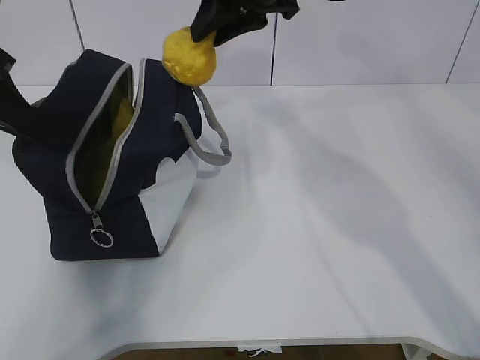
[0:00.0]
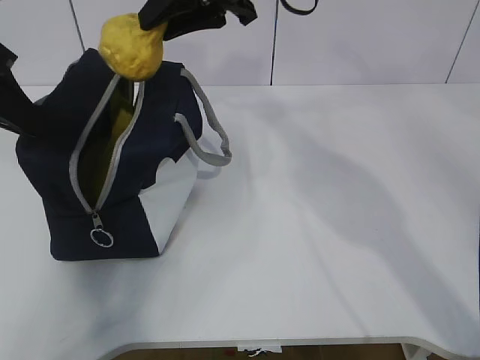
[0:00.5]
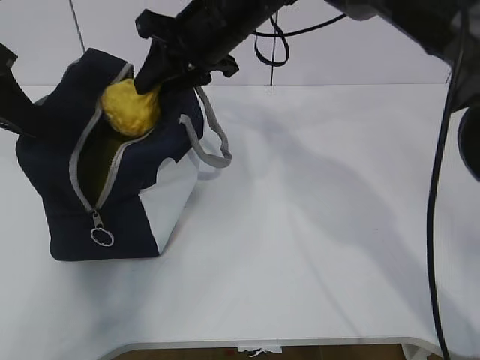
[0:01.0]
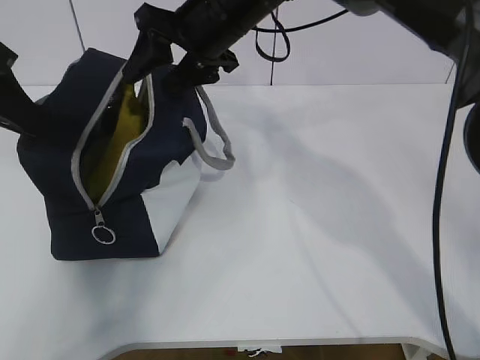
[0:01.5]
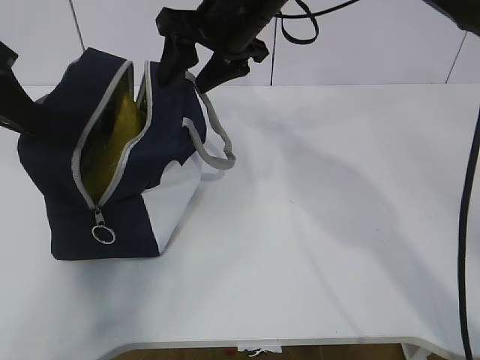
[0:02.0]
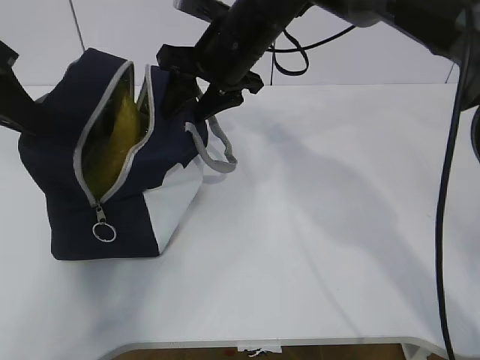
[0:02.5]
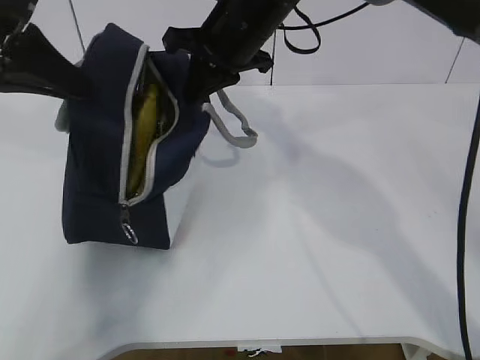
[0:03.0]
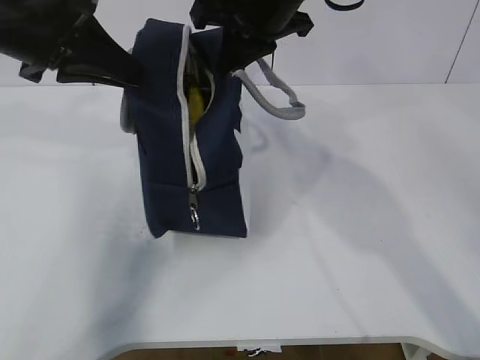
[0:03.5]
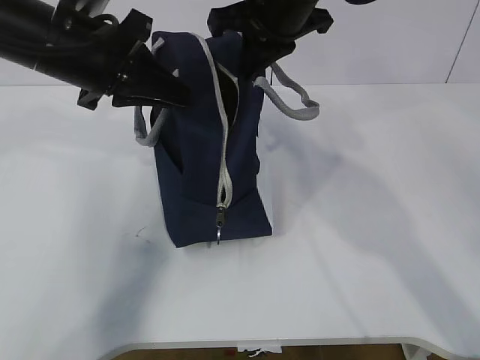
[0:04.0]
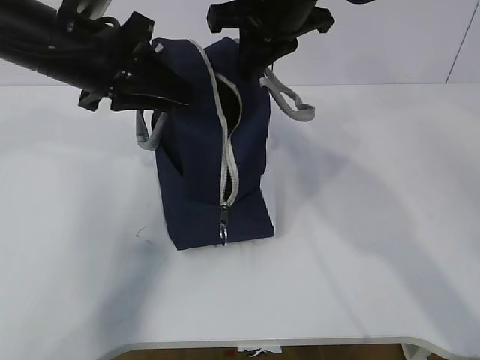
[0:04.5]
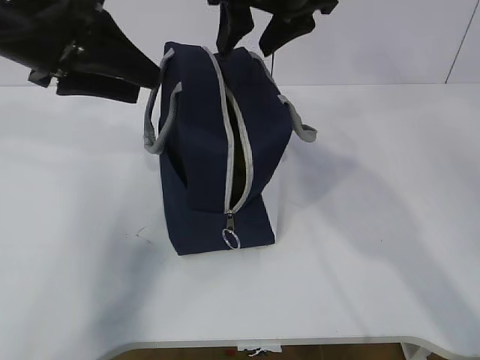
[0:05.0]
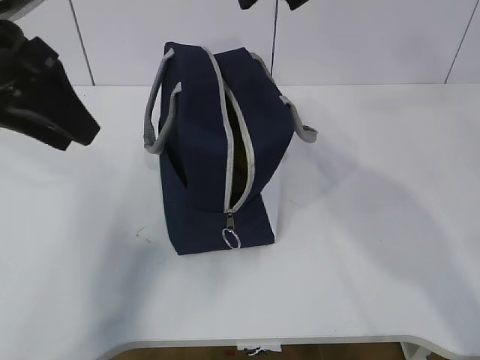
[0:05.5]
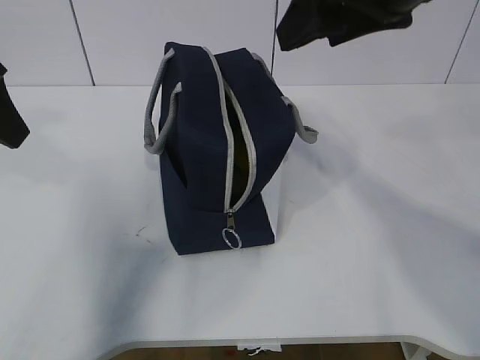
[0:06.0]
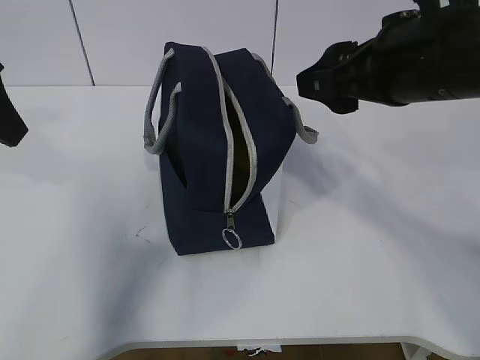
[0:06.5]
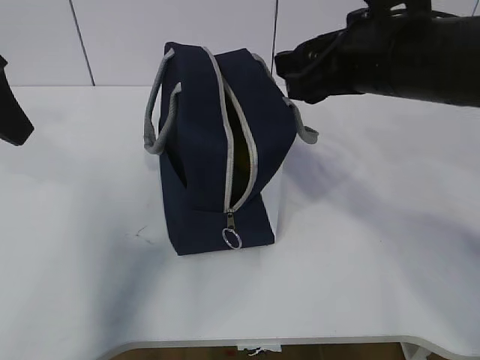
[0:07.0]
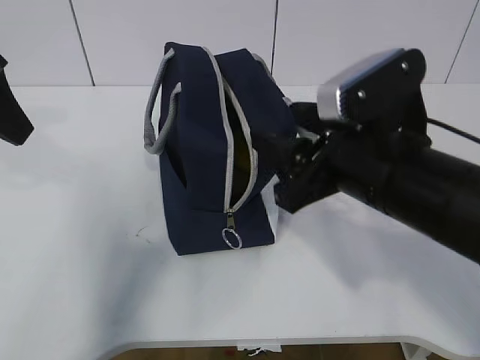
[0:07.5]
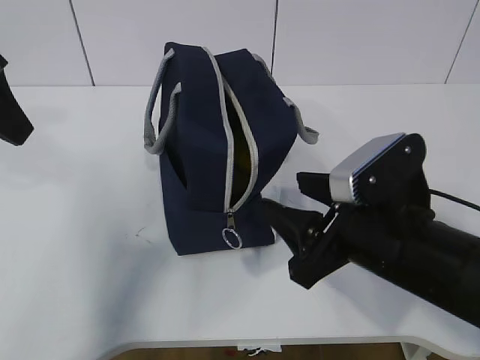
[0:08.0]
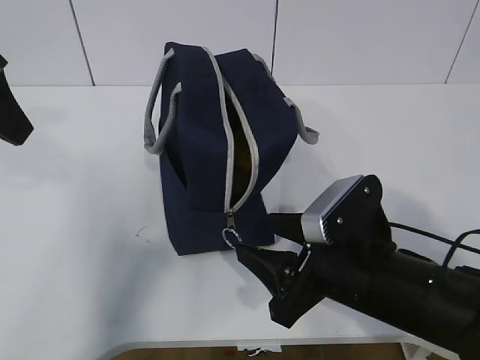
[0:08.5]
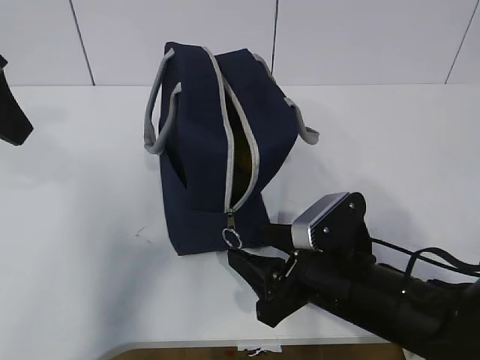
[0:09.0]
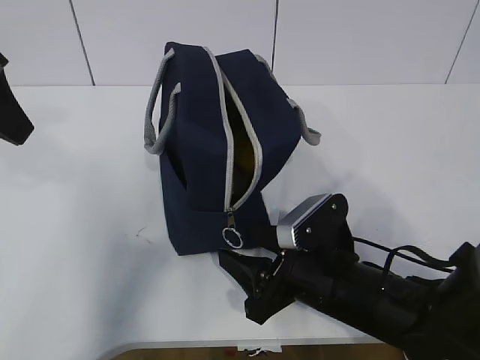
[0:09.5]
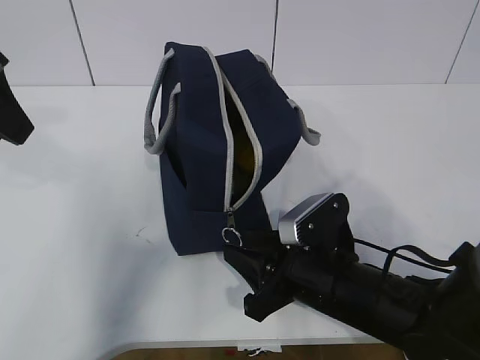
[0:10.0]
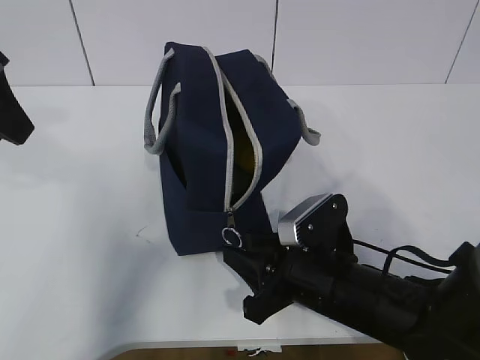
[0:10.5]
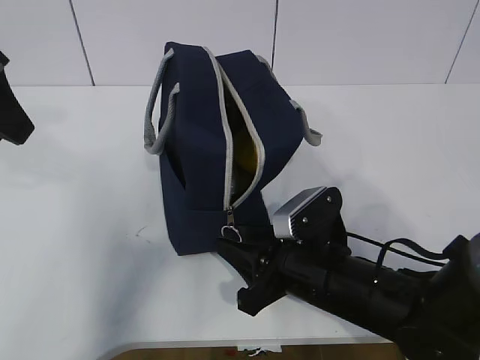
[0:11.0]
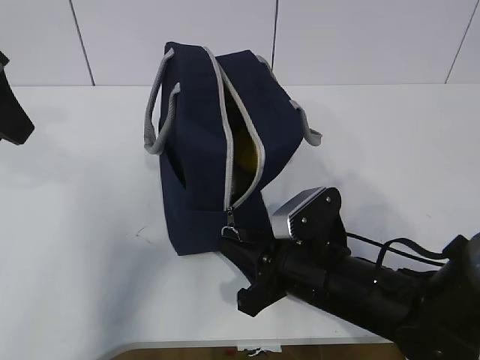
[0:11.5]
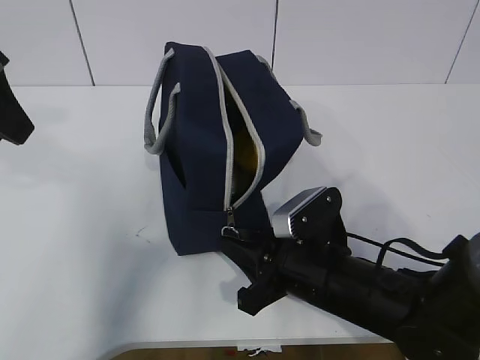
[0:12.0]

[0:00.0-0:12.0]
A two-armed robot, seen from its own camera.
Step, 0:00.0 to 0:11.5: Grab the lunch bag with your left hand.
0:00.0 to 0:02.0: The right gripper changes place by approximately 5 cm, and opens its fingers.
0:02.0 to 0:04.0: The left gripper travels to the right by approximately 10 cm, while the right gripper moves about 5 cm, and closes up.
0:04.0 to 0:06.0: The left gripper travels to the left, backward and upward by roughly 10 cm, and opens its fingers. The right gripper travels backward, to the right and upward by roughly 15 cm, and opens up.
0:06.0 to 0:08.0: The right gripper moves downward, approximately 20 cm.
0:08.0 to 0:10.0: The right gripper goes about 10 cm downward.
0:10.0 to 0:12.0: Neither gripper changes place.

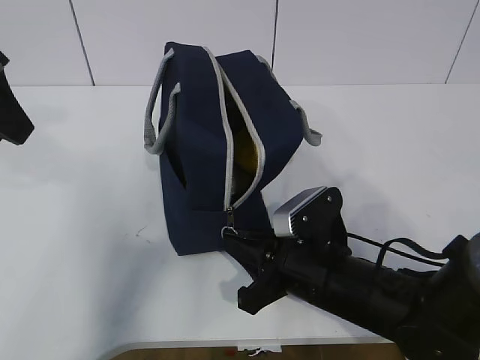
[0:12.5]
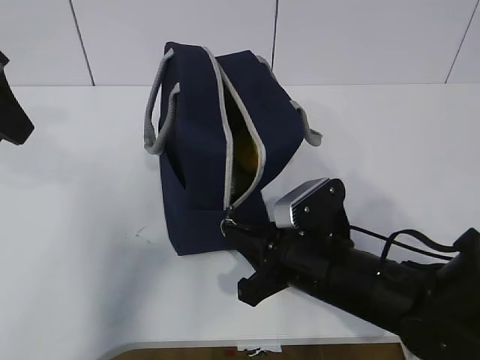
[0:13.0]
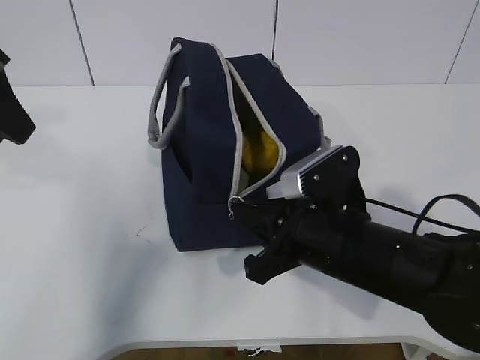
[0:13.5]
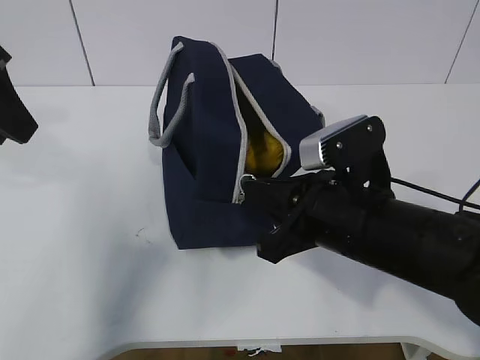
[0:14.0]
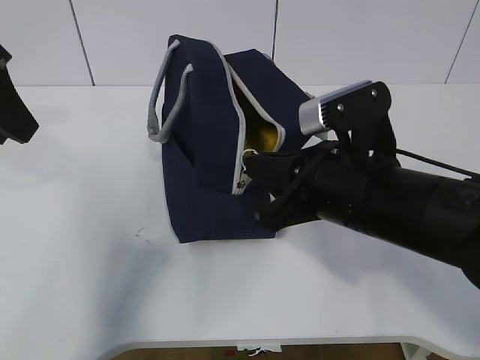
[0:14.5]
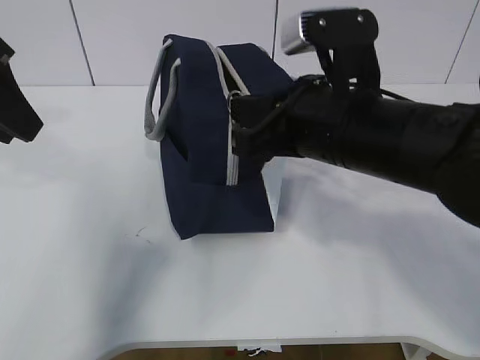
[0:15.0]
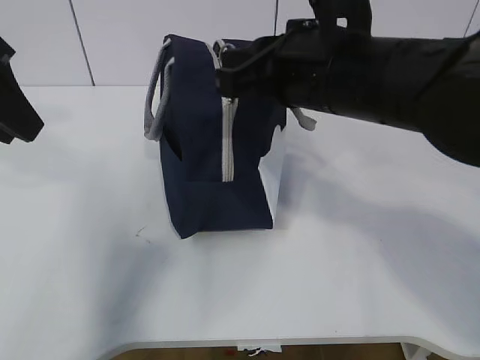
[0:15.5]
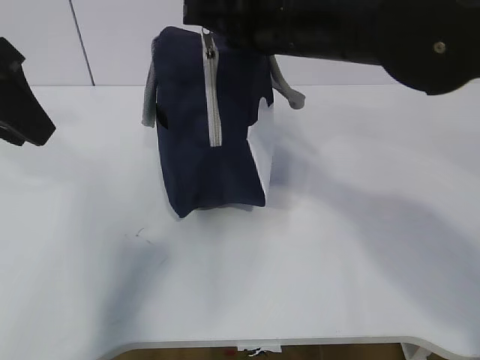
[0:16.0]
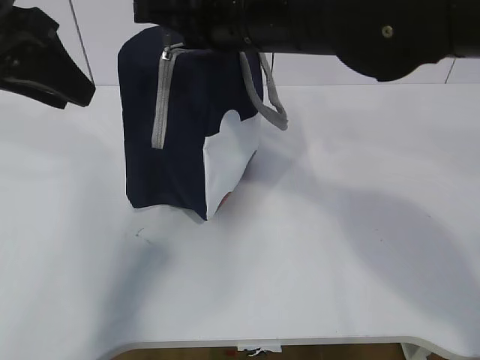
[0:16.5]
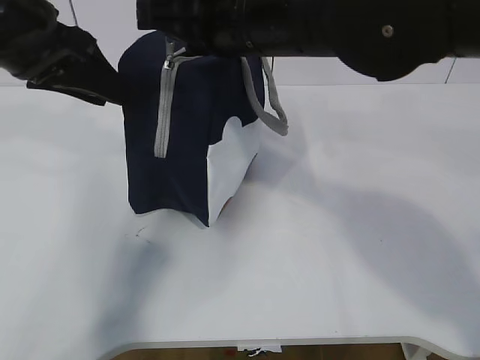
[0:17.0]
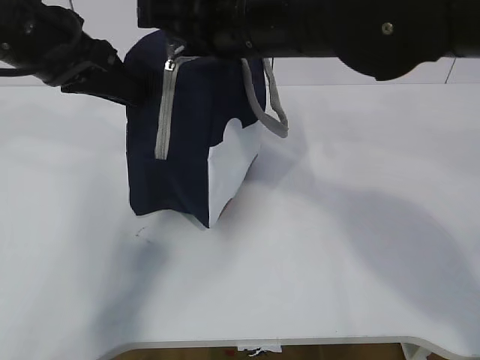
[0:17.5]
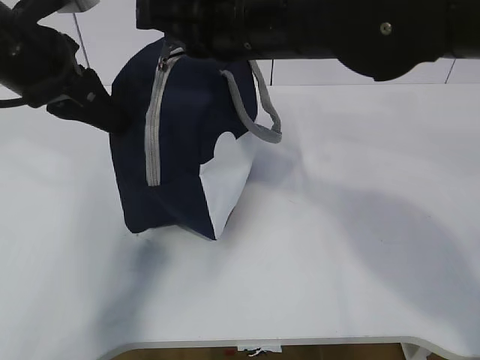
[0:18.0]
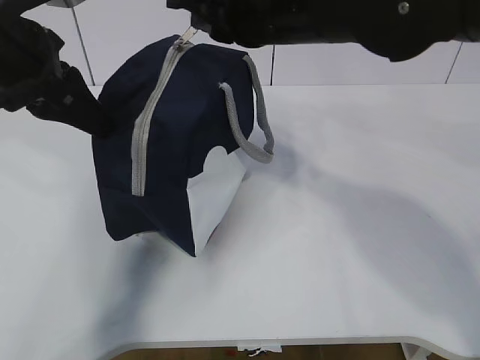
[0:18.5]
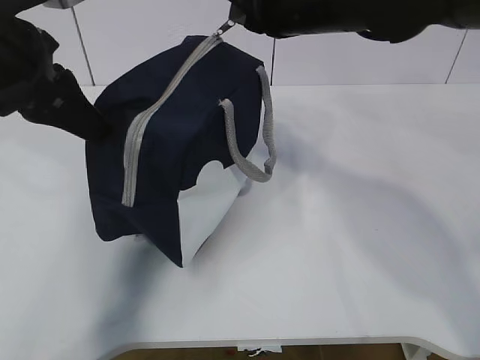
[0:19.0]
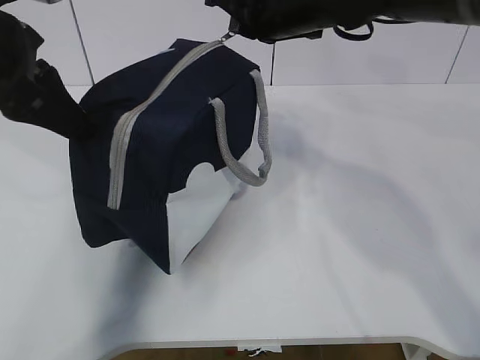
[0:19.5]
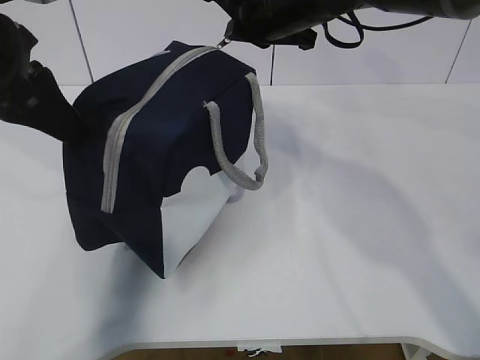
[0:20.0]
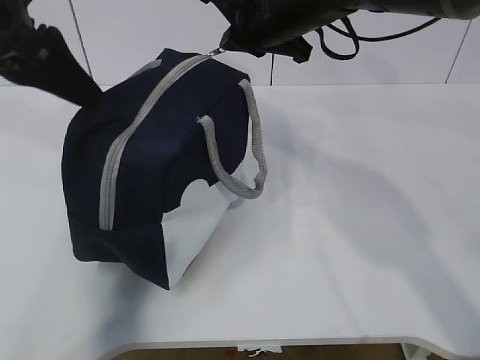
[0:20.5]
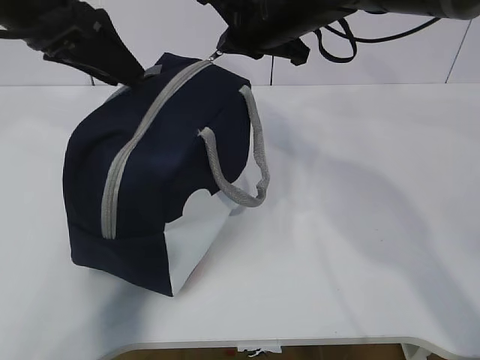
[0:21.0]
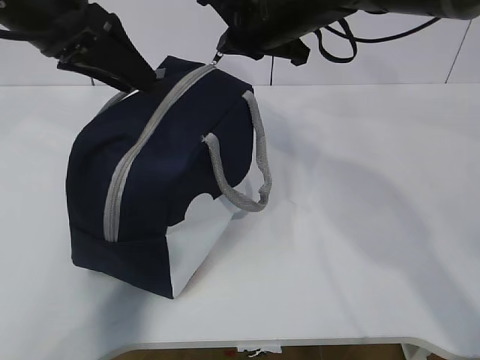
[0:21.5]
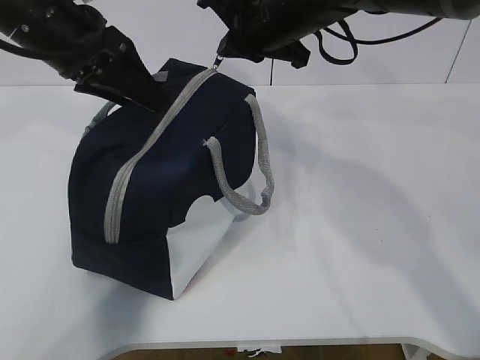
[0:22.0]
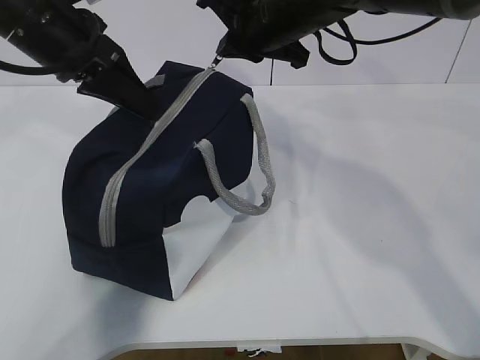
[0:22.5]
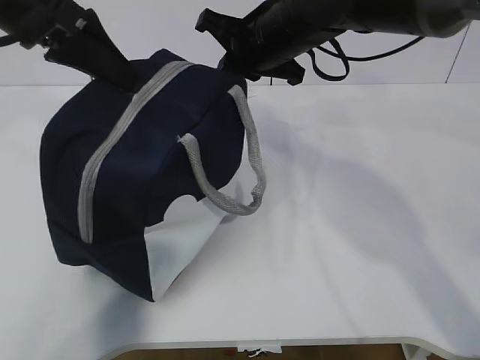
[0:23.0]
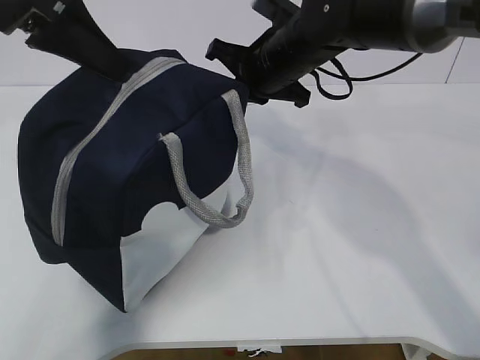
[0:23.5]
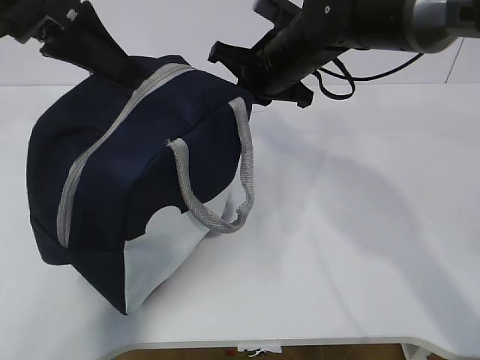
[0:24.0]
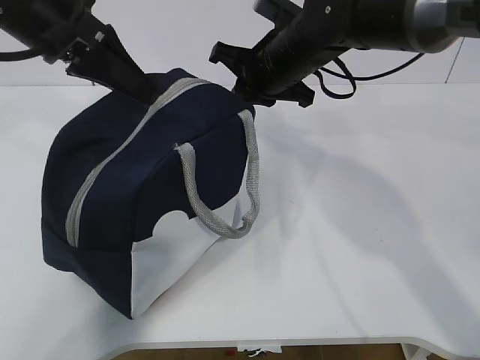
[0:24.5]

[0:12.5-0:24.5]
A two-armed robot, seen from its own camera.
Step, 0:12.5 to 0:15.5: Pull the zipper with your right hand.
0:12.5 to 0:14.5: The right gripper heads upward, covering some 10 cm.
0:14.5 to 0:16.5: The right gripper goes about 15 cm upward, to the left and forward.
0:16.5 to 0:18.5: The left gripper closes.
0:18.5 to 0:20.5: The left gripper opens up. Meanwhile the right gripper moves forward, approximately 10 cm.
0:20.5 to 0:22.5: The left gripper goes approximately 5 cm forward, and closes.
0:22.5 to 0:24.5: The right gripper is displaced downward by about 5 cm.

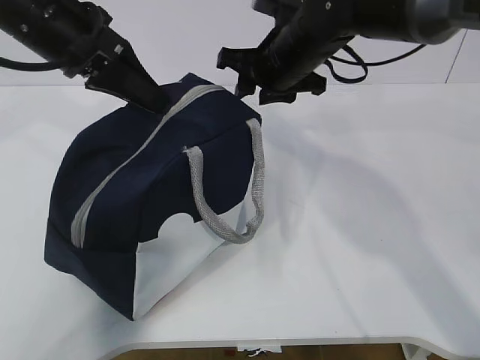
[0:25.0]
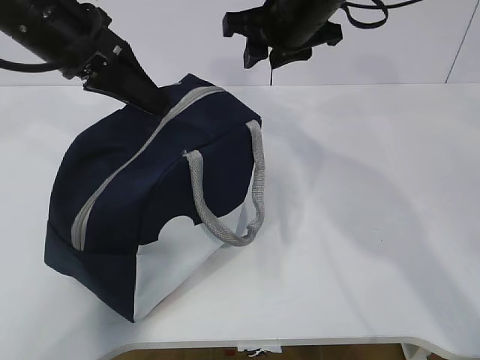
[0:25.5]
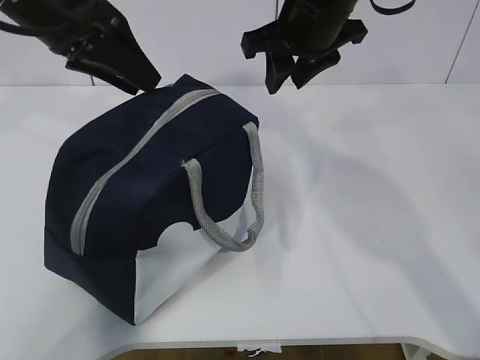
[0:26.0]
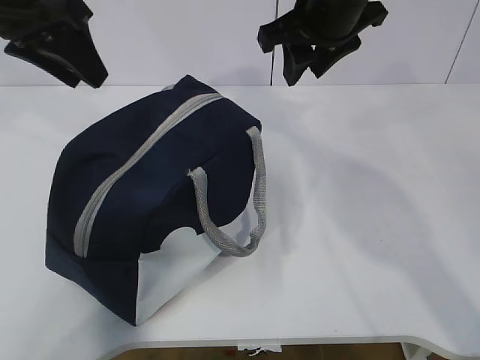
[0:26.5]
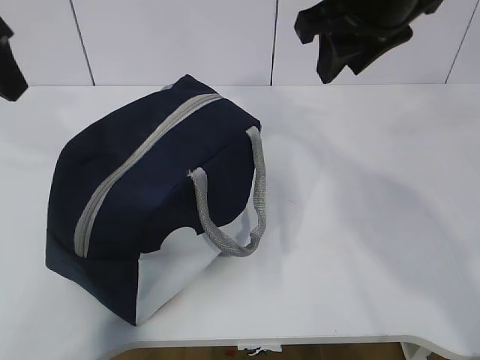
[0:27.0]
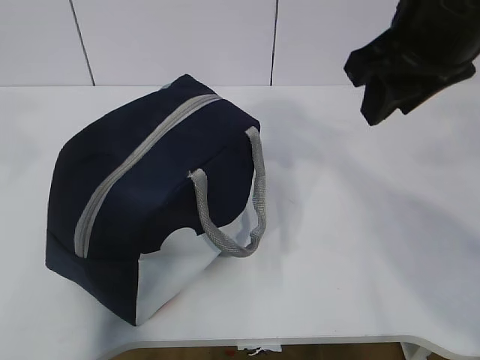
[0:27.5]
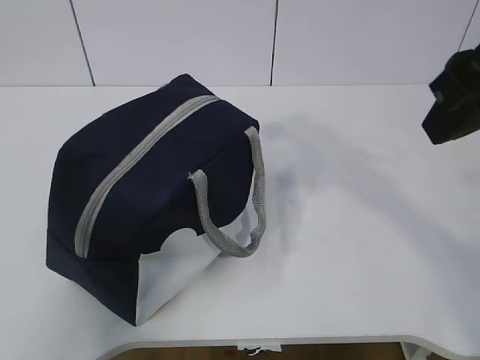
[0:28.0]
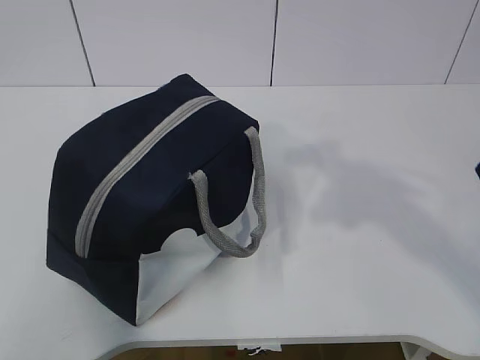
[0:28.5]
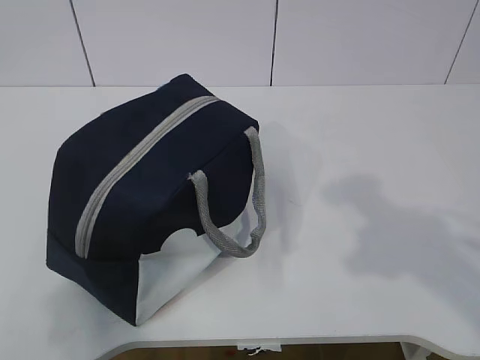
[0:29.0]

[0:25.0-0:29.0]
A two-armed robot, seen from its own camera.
0:25.0 to 0:27.0: The left gripper moves to the left, upward and backward, approximately 10 cm, and opens up, while the right gripper goes some 15 cm upward, backward and to the right.
0:27.0 to 0:29.0: The right gripper moves backward and to the right, approximately 25 cm; the left gripper heads backward, covering roughly 30 cm.
